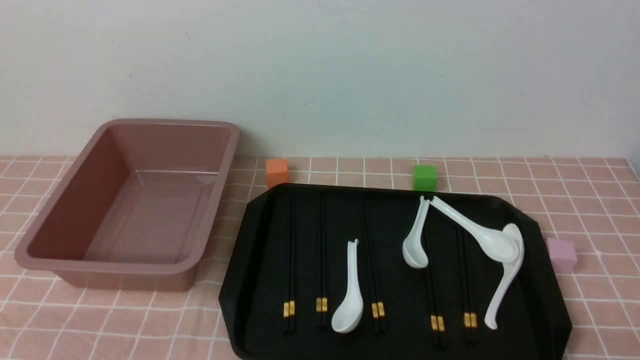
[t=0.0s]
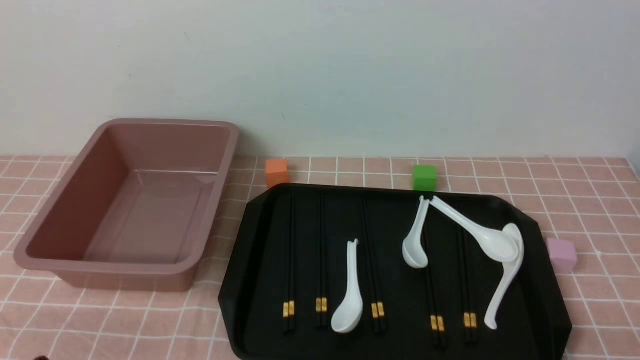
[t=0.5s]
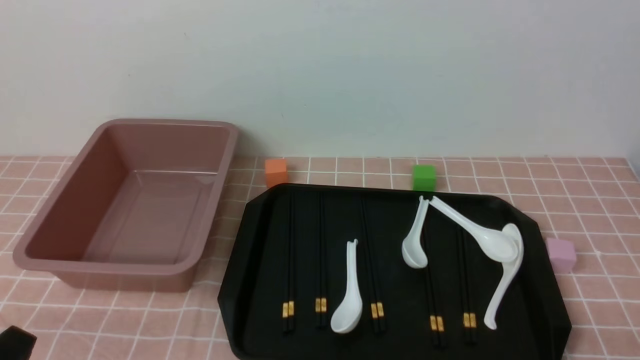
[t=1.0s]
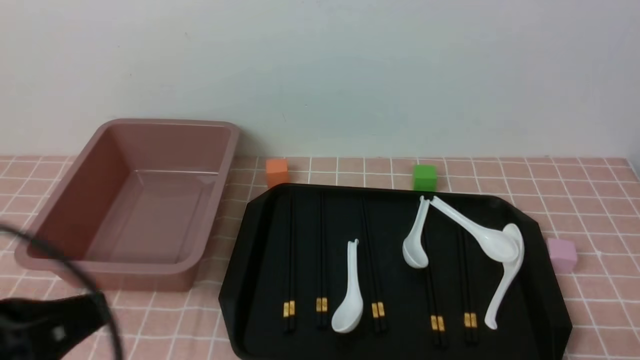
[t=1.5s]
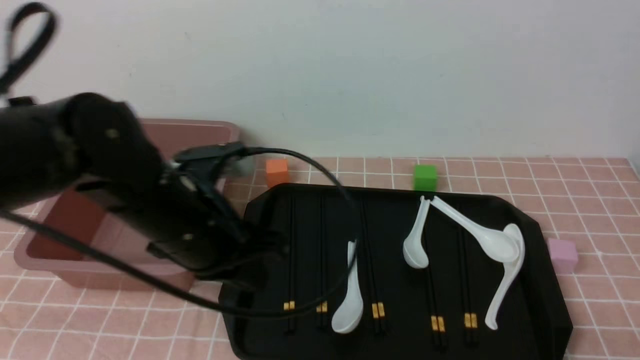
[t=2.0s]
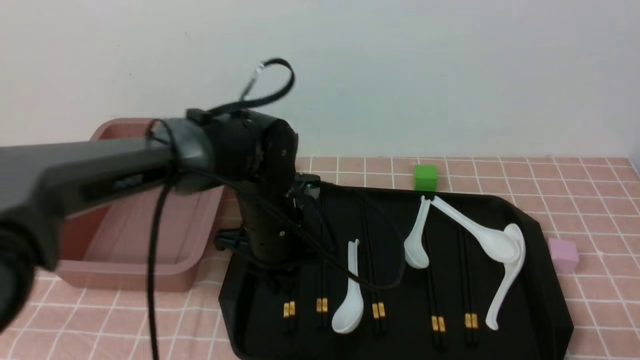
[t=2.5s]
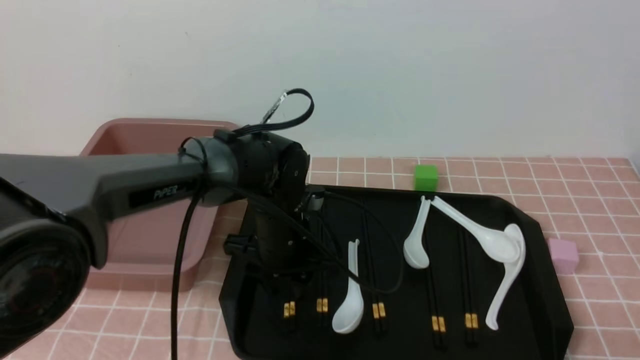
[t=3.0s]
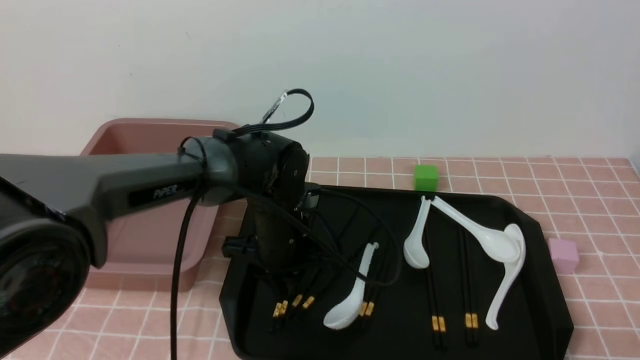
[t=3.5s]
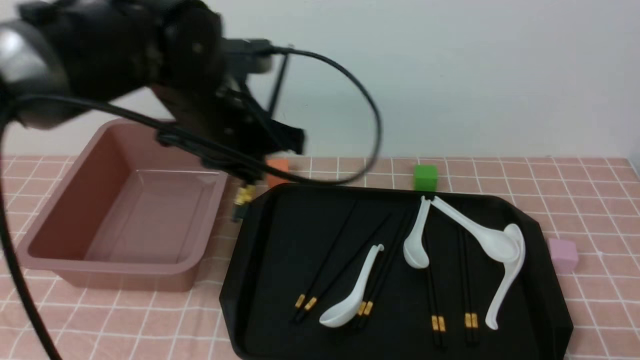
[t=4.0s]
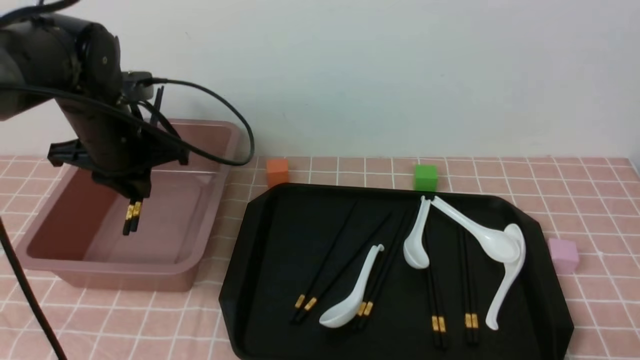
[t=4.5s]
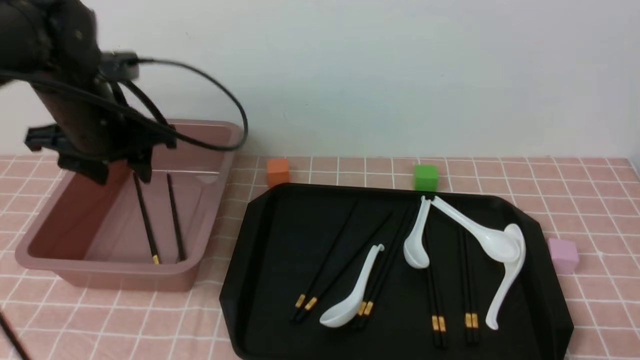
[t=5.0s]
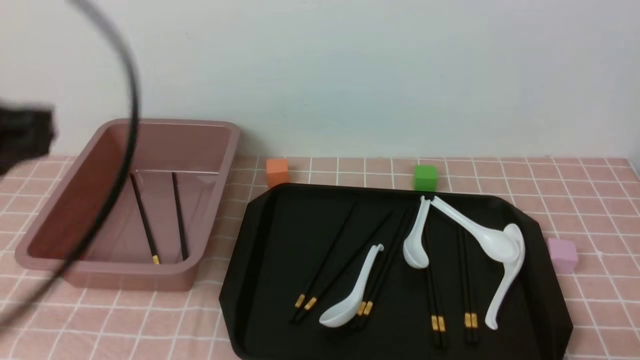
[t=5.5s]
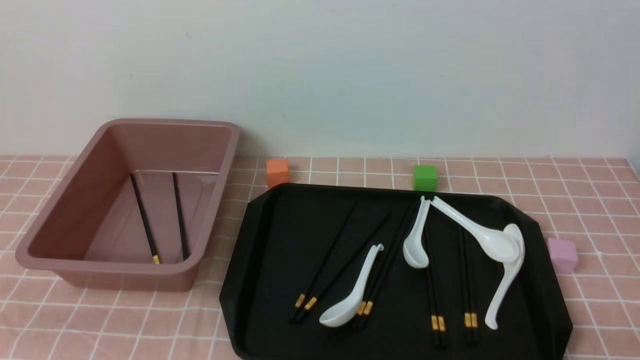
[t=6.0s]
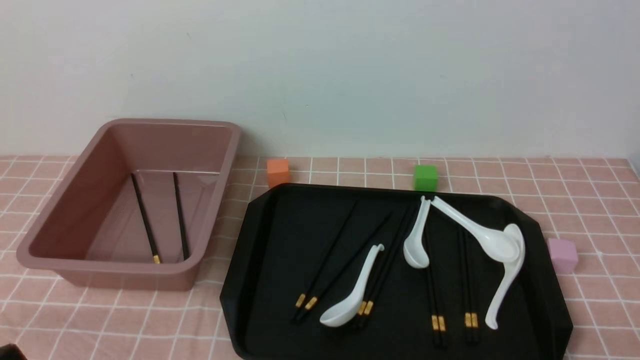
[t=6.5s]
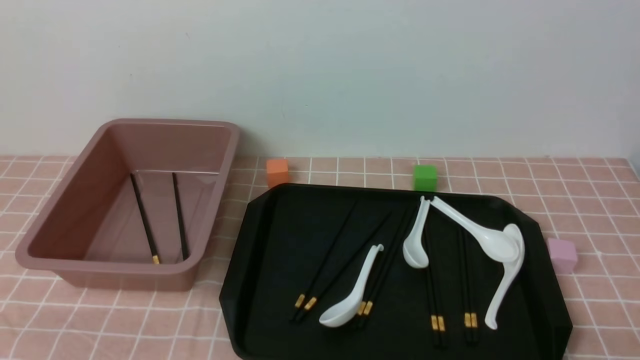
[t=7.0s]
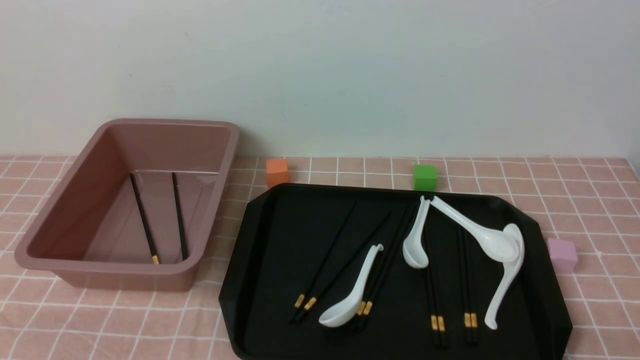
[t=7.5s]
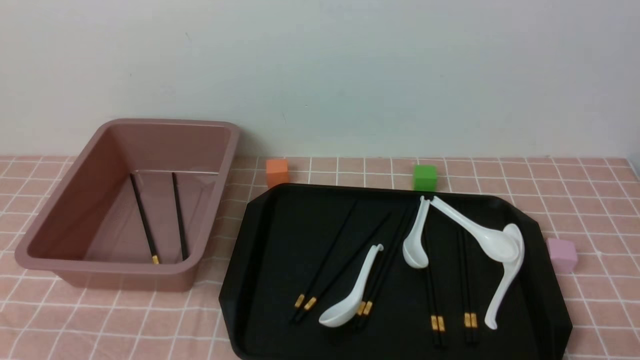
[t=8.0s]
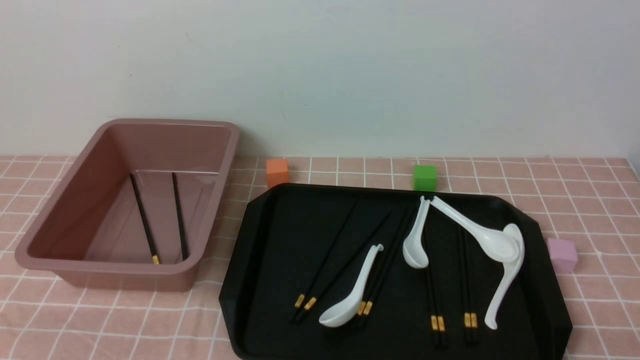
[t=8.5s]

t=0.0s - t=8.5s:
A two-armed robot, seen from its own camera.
Step, t=0.0s - t=3.5s: use the left arm to grab a pair of chopsticks.
Step, t=4.0s - t=5.0s: use the left arm to put the chopsticks into the lunch box.
t=0.0s - t=2.0s: The left gripper heads forward, to the right and upward, covering some 30 cm, and closes its fingers.
t=2.0s - t=4.0s: The left gripper heads forward, covering some 10 cm, reaches about 10 cm downward, then returns, and opens.
t=4.0s - t=6.5s: The left gripper is displaced backward and to the left by about 35 cm, and closes its fingers.

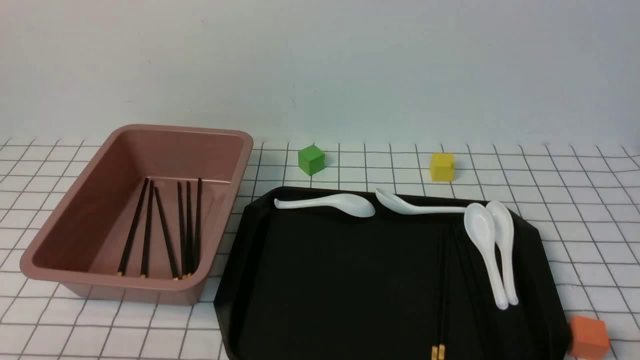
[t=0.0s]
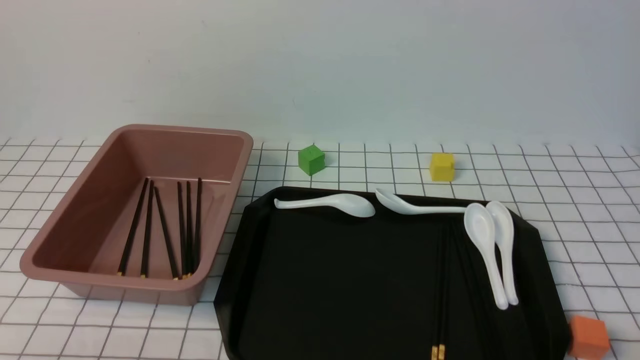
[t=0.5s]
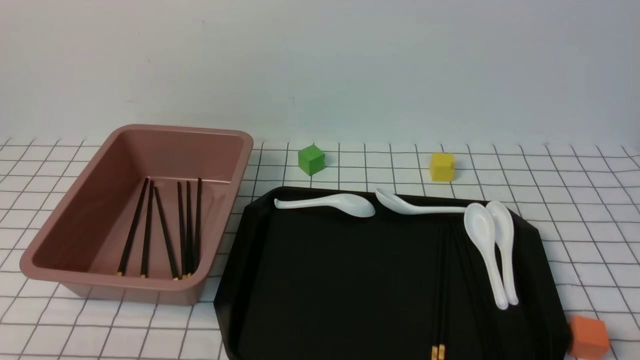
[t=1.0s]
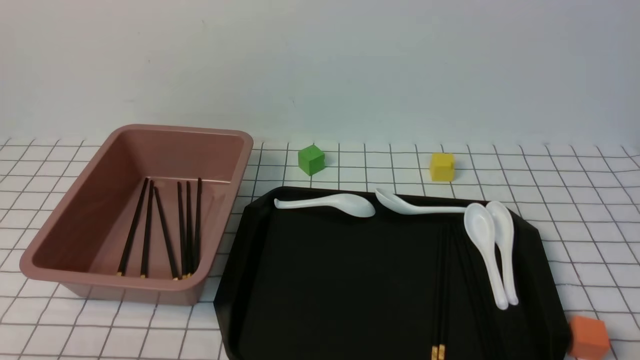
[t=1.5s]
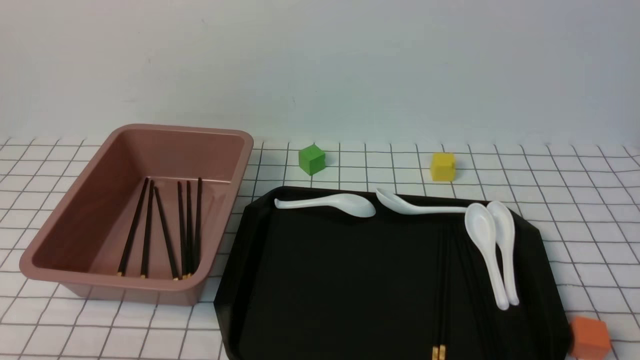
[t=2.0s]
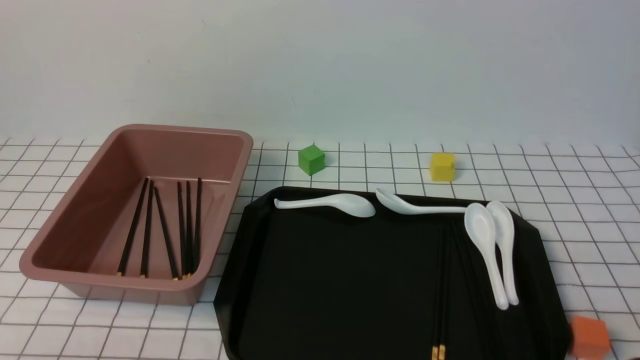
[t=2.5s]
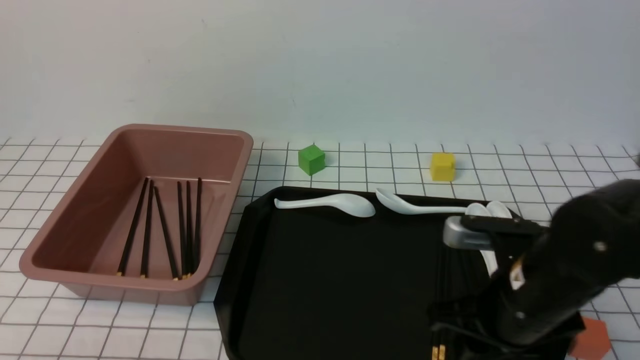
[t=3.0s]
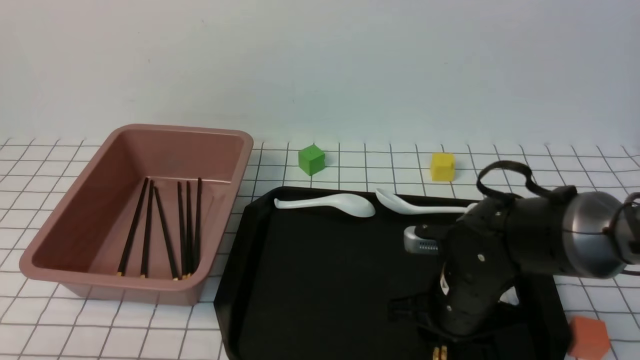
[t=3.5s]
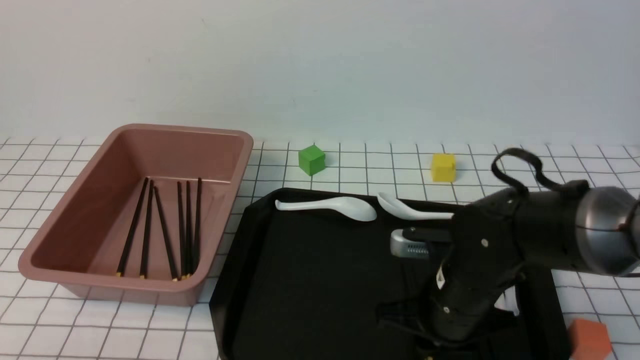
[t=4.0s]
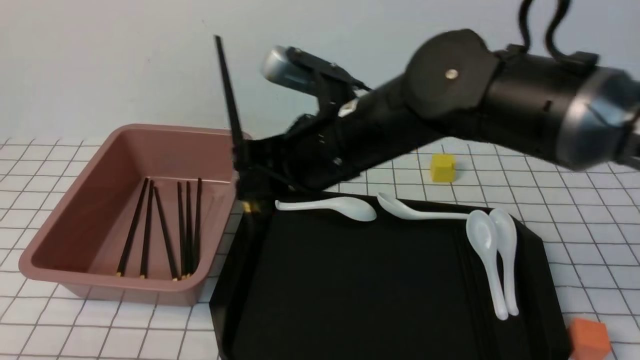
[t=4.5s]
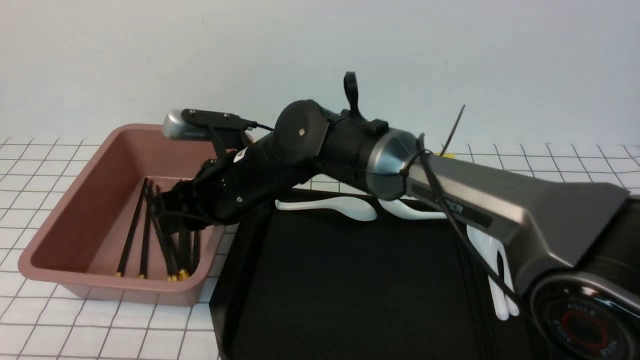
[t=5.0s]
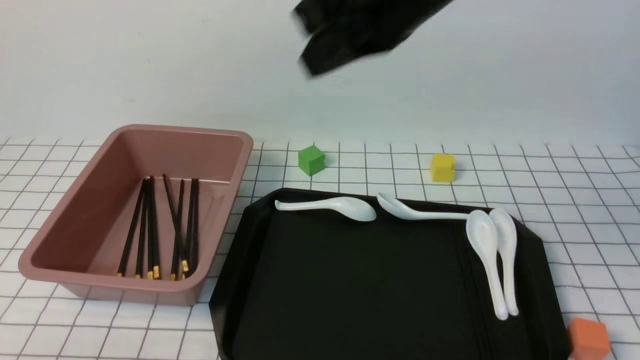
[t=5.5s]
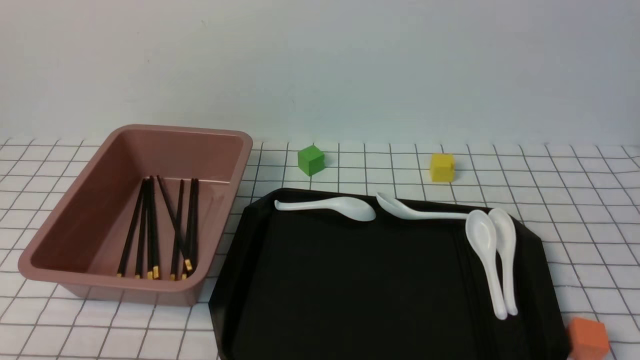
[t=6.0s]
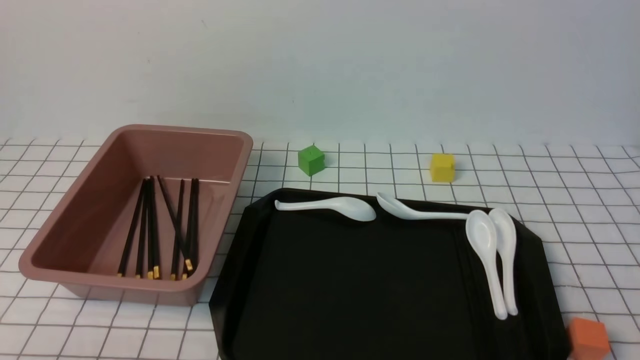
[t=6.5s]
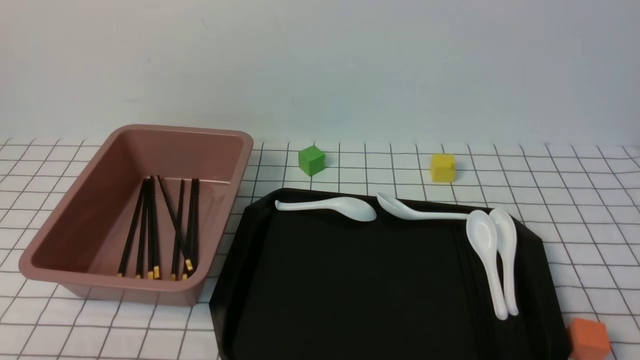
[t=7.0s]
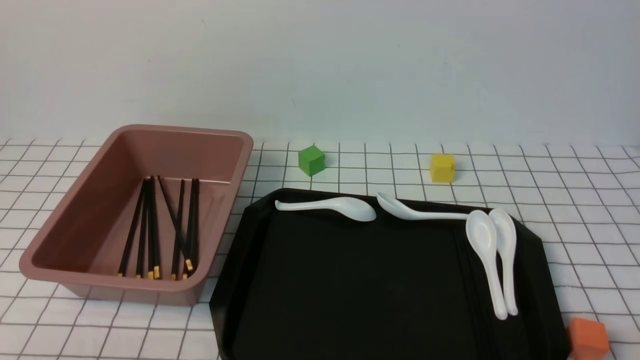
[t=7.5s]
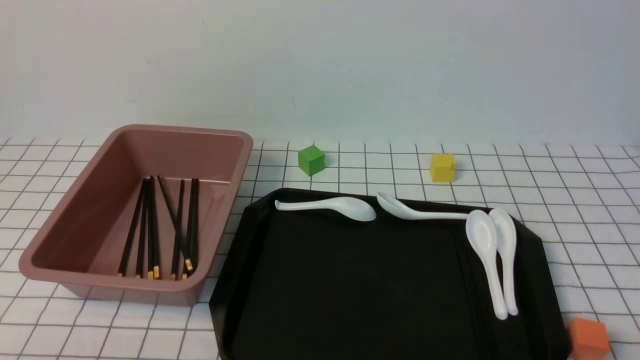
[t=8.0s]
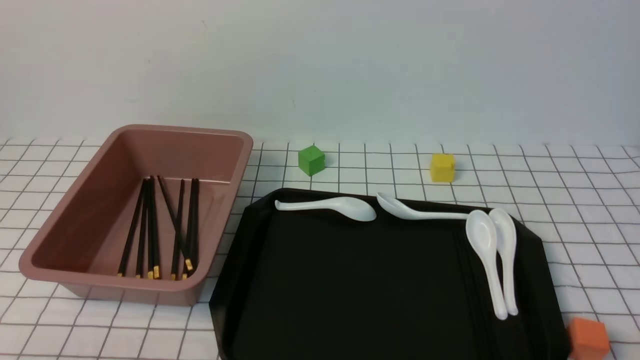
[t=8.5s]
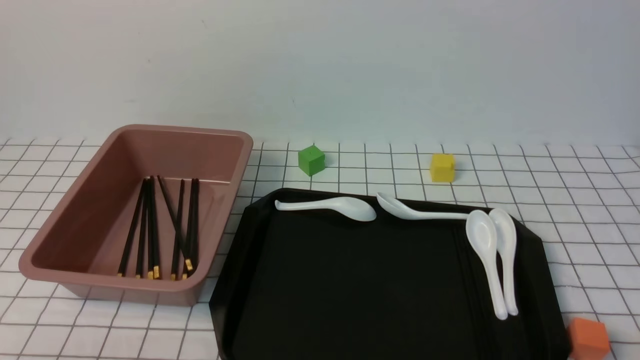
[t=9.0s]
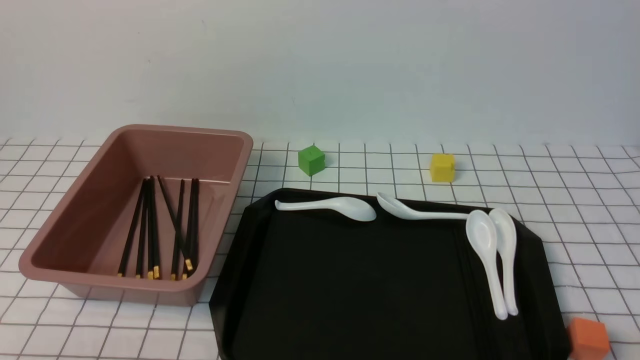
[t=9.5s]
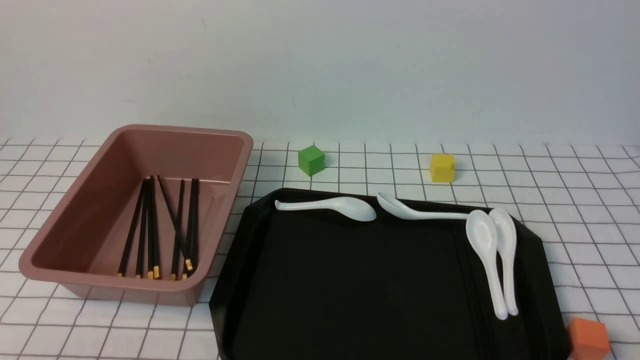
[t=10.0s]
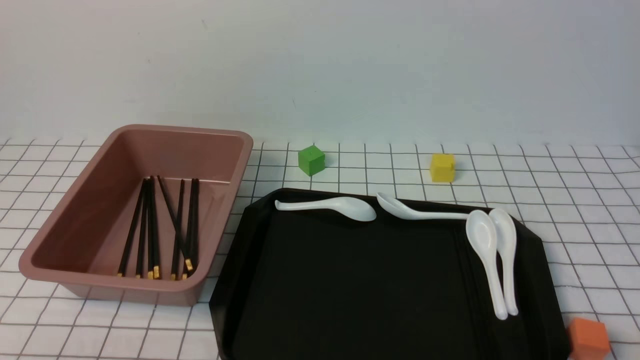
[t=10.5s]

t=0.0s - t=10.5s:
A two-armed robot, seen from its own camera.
Step, t=0.0s - t=4.0s: use the right arm to grab a pair of chopsticks.
Step, t=4.5s - t=5.0s: use the right arm to put the chopsticks into the lunch box.
t=2.0s - t=4.0s: The right gripper goes approximately 30 cm forward and to the left, and opens and closes again.
t=4.0s - t=6.5s: The right gripper travels backward, to the right and upward by some 30 cm, and closes.
t=8.5s - t=10.5s: Both grippers stay put.
